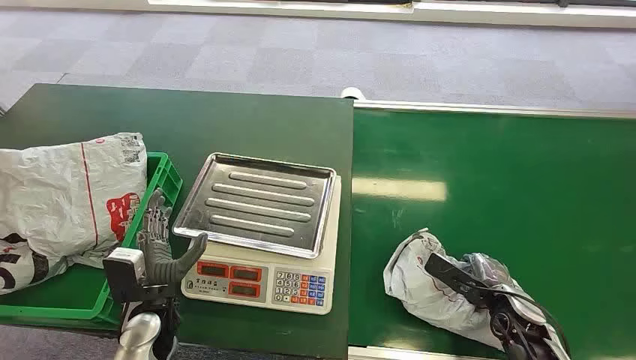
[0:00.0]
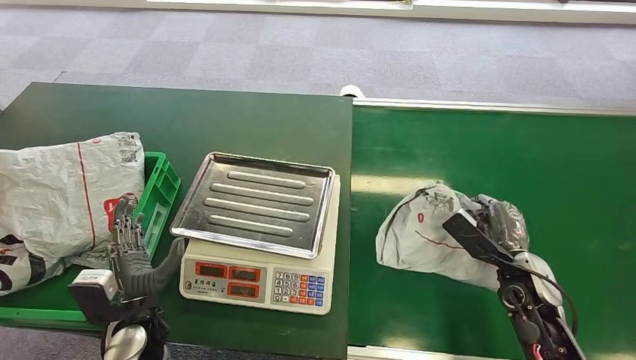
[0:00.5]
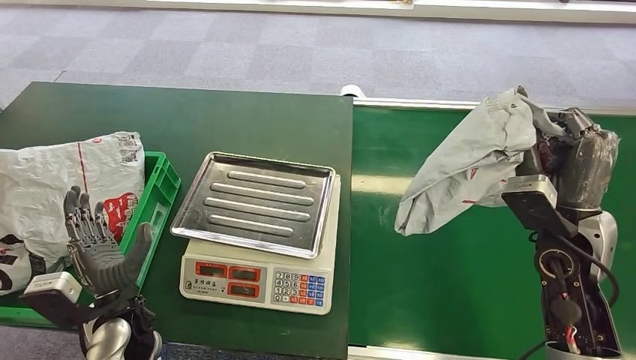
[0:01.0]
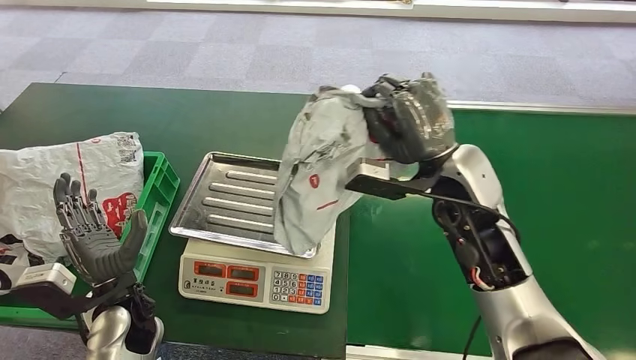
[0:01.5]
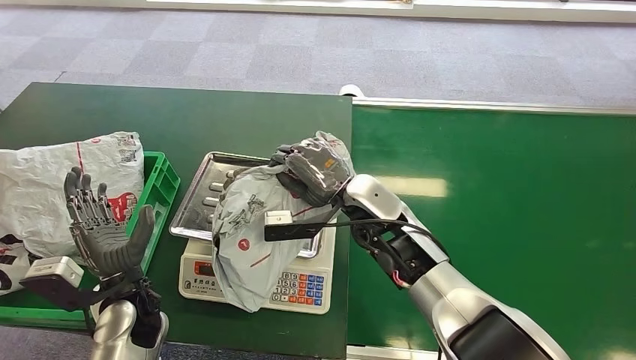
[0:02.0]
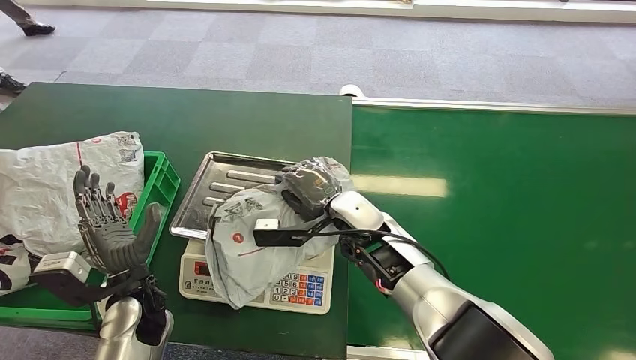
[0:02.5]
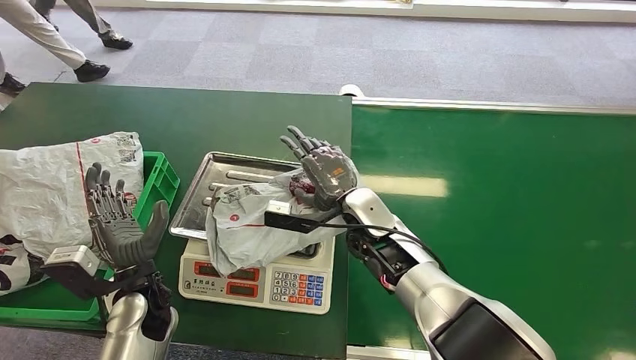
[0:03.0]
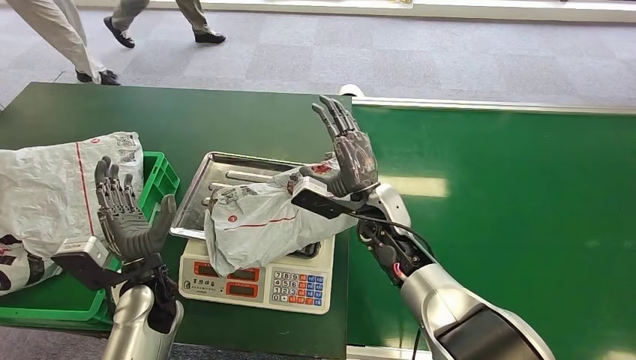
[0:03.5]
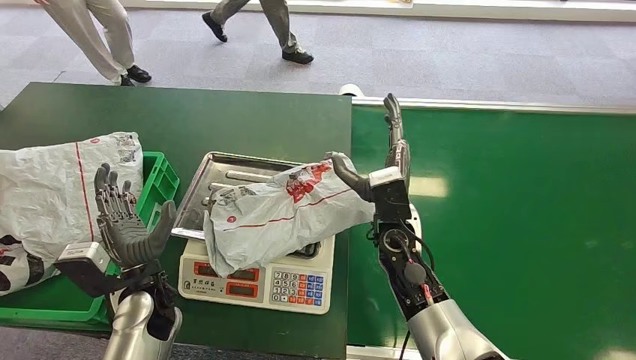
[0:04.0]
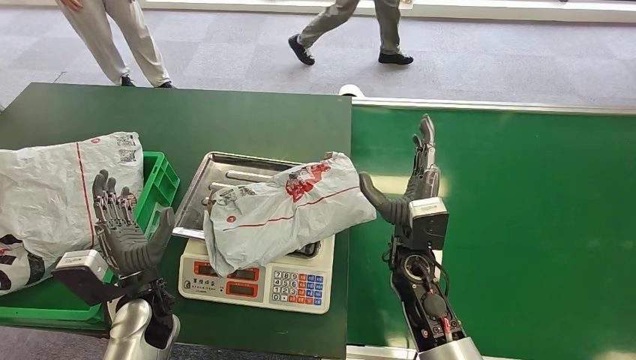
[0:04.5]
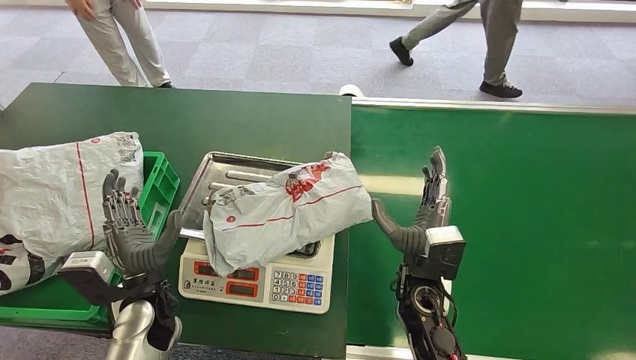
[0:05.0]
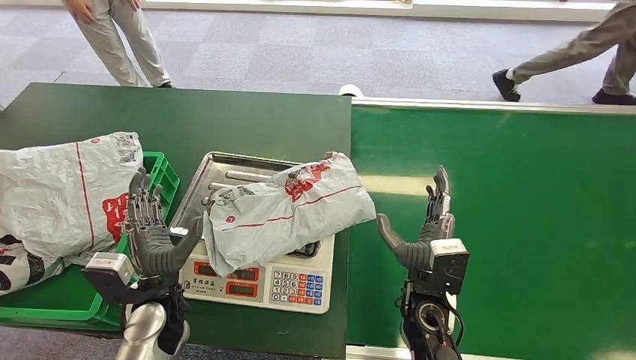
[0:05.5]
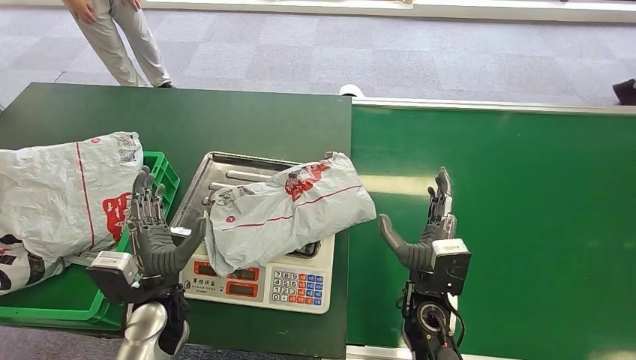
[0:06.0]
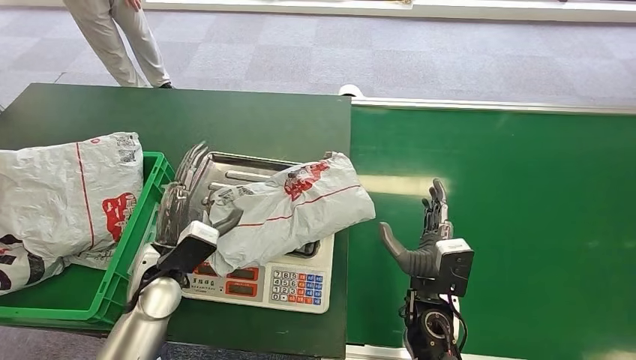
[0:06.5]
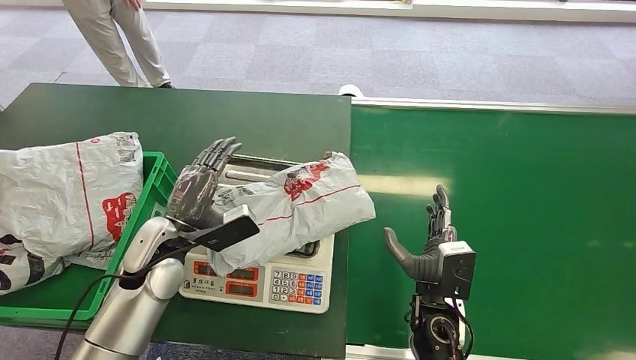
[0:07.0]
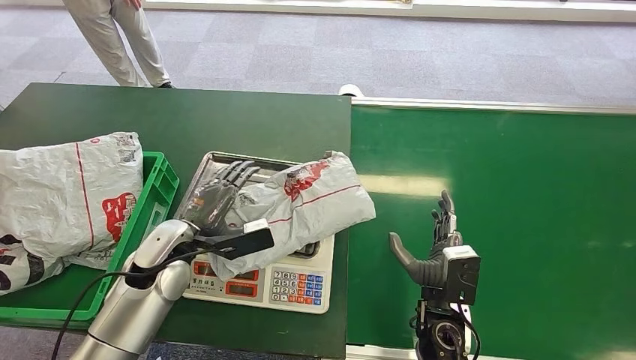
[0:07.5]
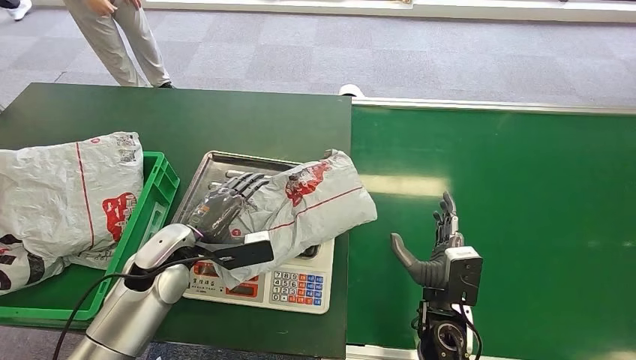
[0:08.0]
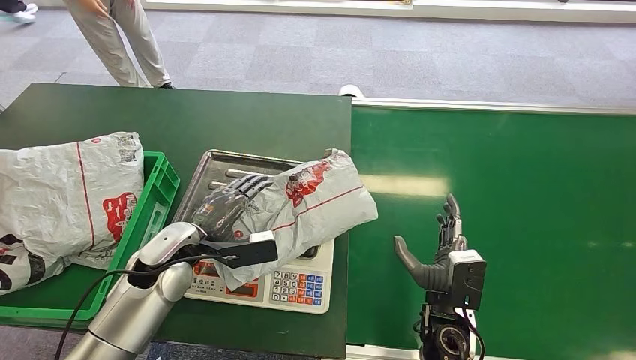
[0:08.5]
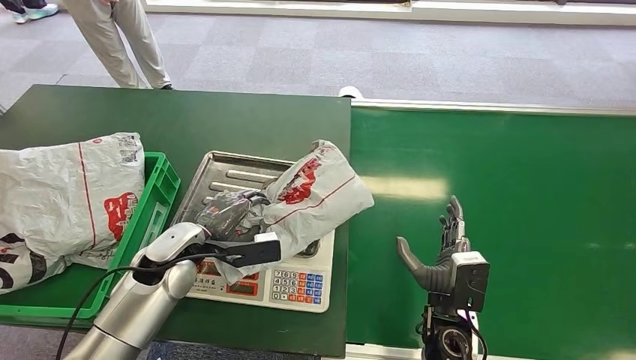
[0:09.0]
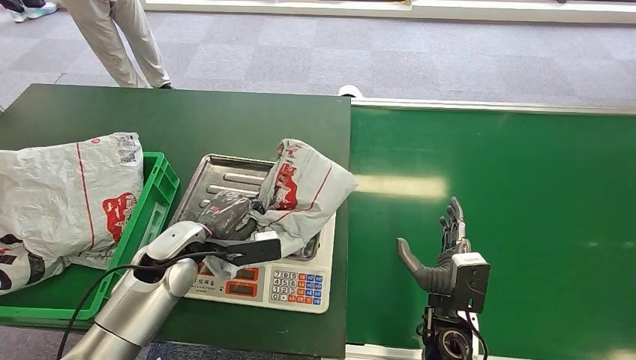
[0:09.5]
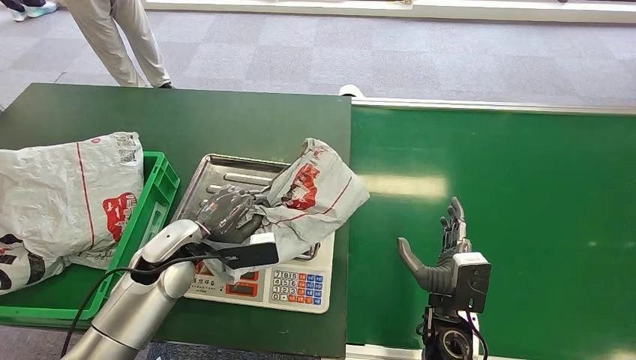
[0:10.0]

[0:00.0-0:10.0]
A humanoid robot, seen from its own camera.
Step, 0:00.0 to 0:01.0: Pick up the package from the conveyor belt.
Step, 0:02.0 to 0:03.0: Place the package onto the inbound machine.
0:04.0 to 0:06.0: The right hand shifts some 10 cm backward and downward.
0:06.0 to 0:08.0: The left hand travels forward by roughly 5 cm.
0:08.0 to 0:10.0: There are only small adjustments of the hands.

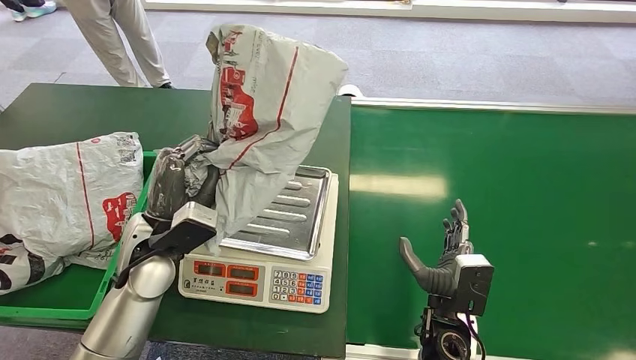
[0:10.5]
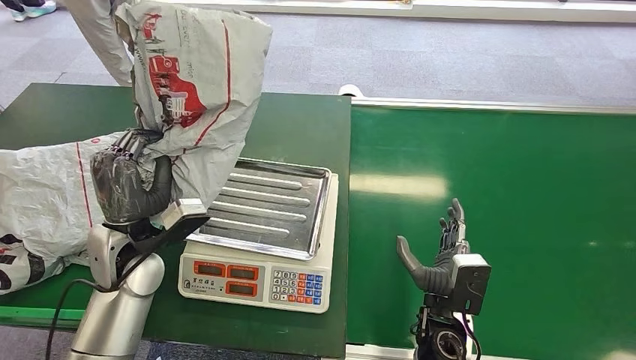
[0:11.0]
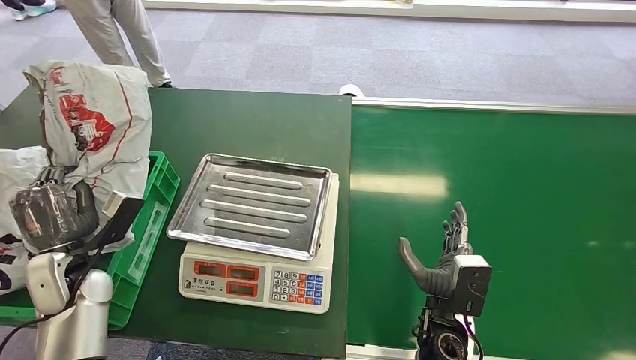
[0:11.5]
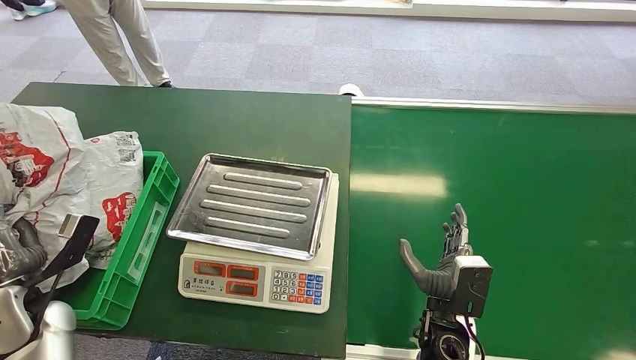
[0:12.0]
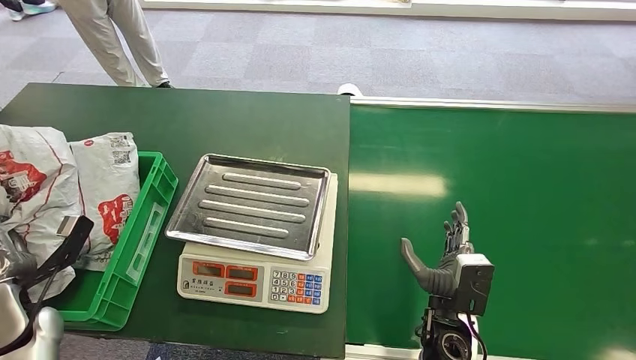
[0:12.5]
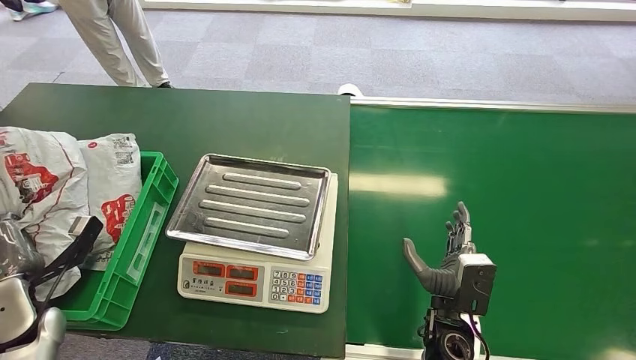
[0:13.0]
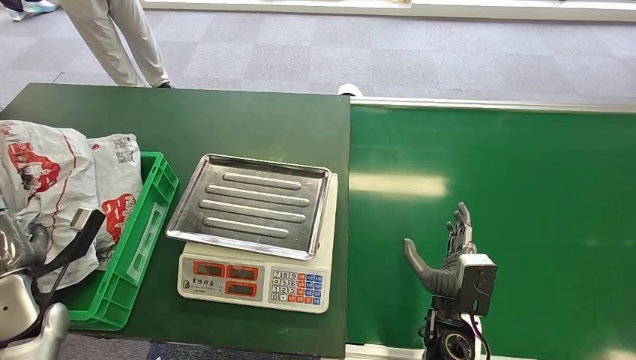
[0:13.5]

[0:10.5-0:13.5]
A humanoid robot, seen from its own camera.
Step, 0:11.0 to 0:13.5: Place the package into the parcel locker.

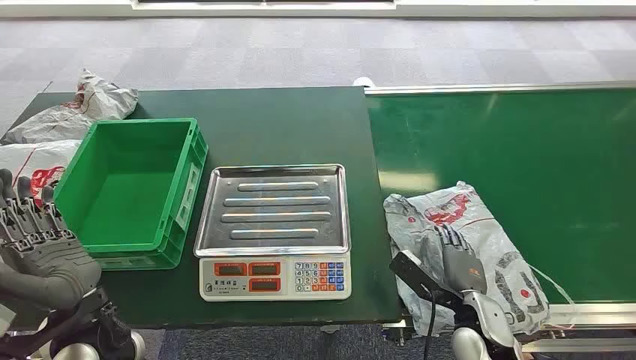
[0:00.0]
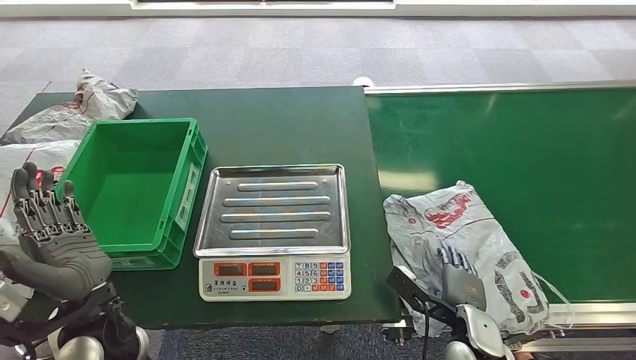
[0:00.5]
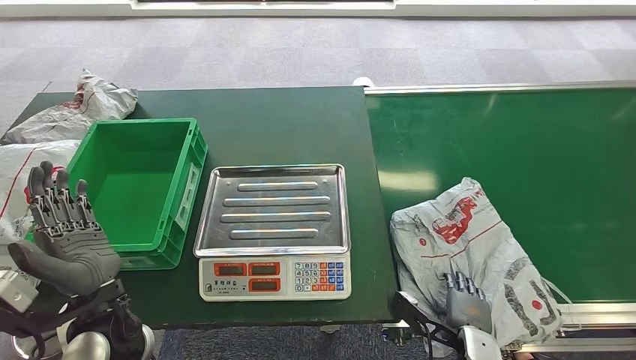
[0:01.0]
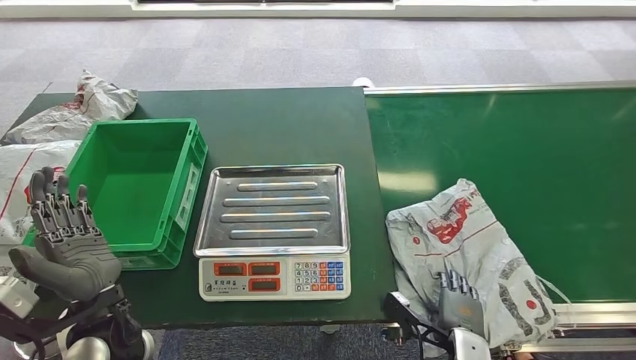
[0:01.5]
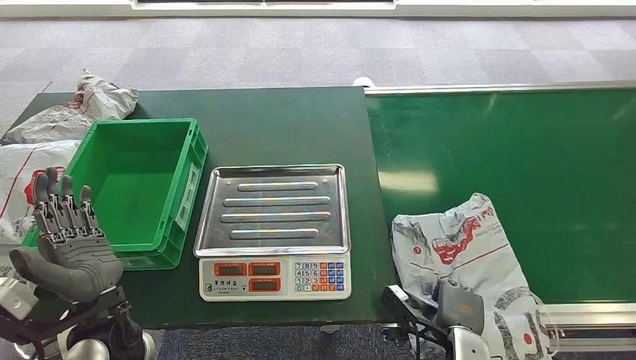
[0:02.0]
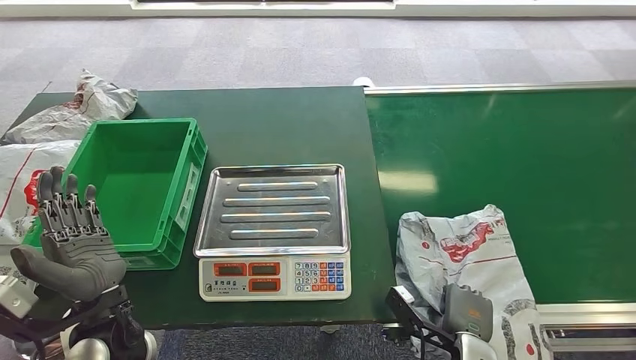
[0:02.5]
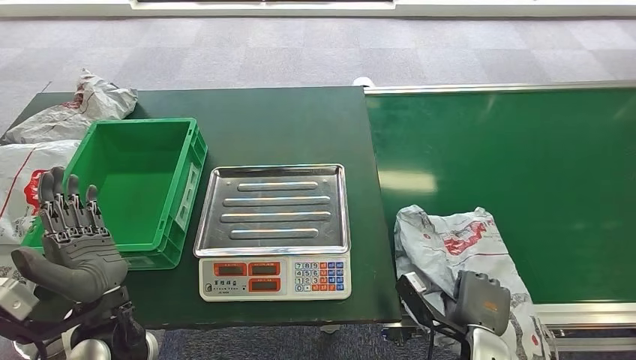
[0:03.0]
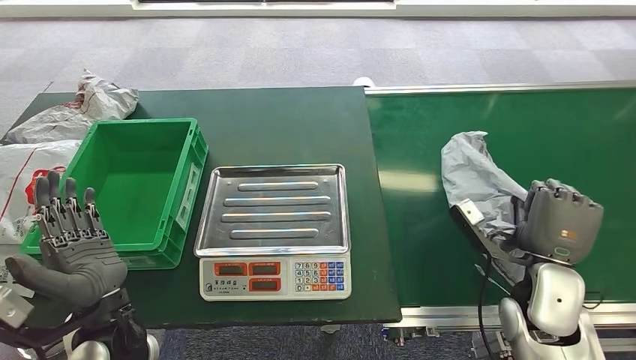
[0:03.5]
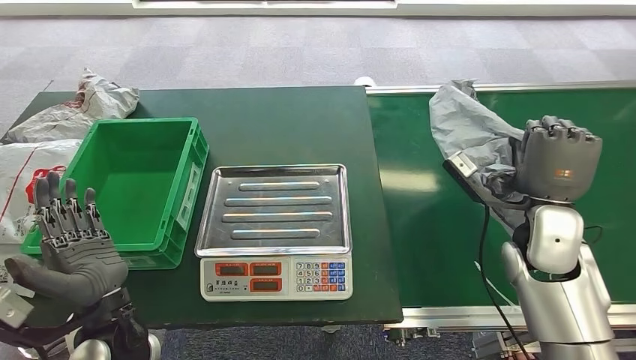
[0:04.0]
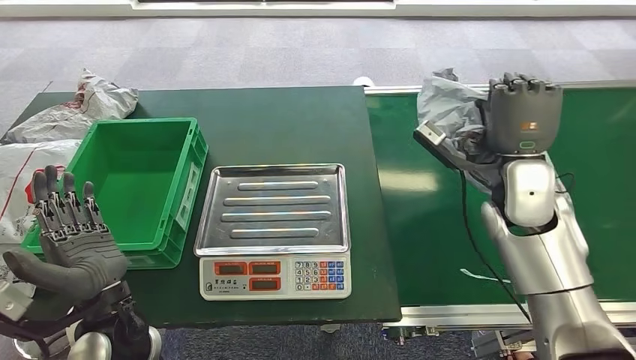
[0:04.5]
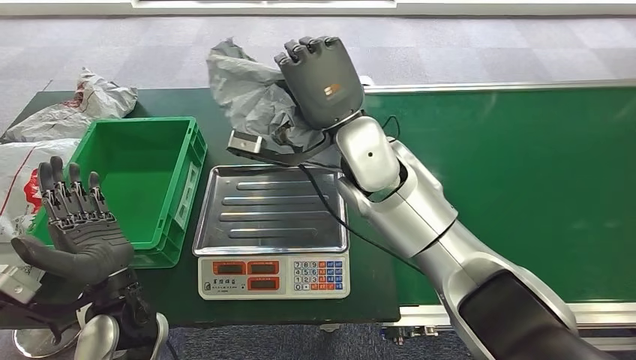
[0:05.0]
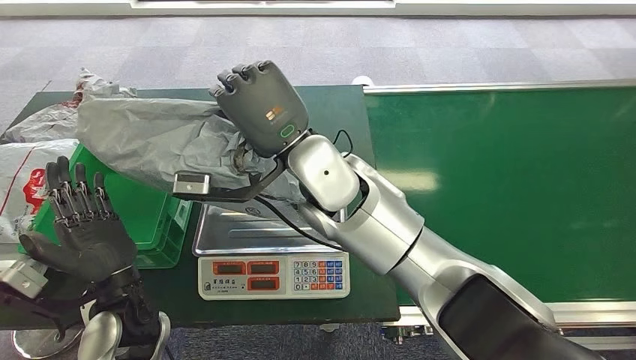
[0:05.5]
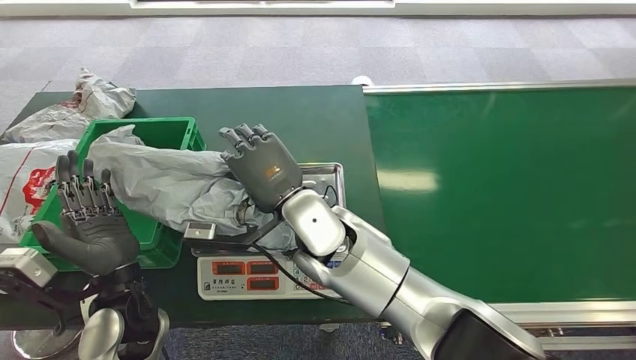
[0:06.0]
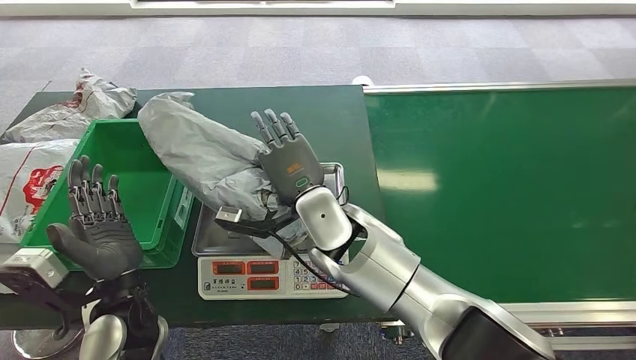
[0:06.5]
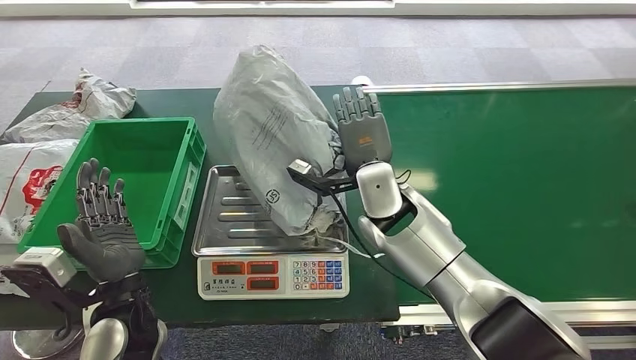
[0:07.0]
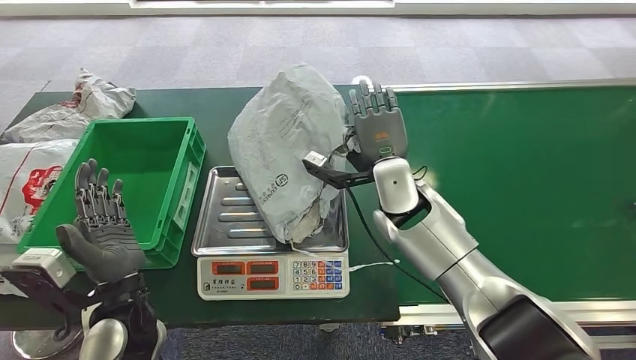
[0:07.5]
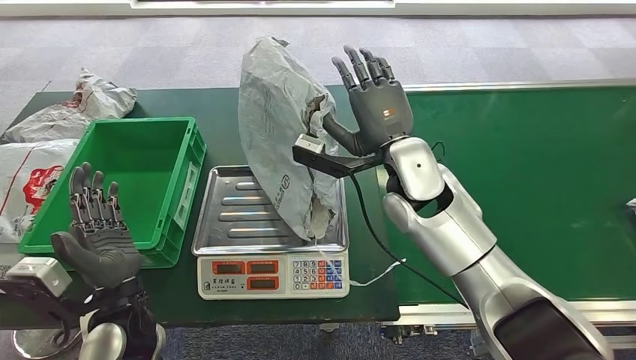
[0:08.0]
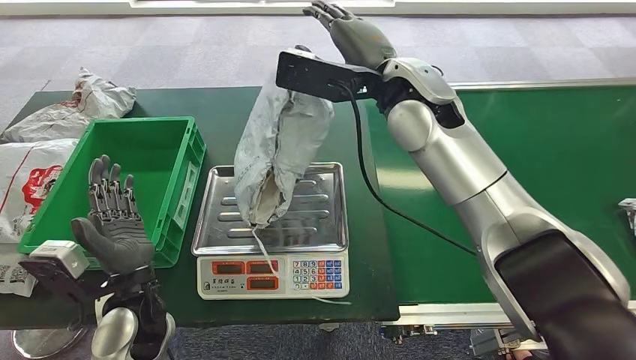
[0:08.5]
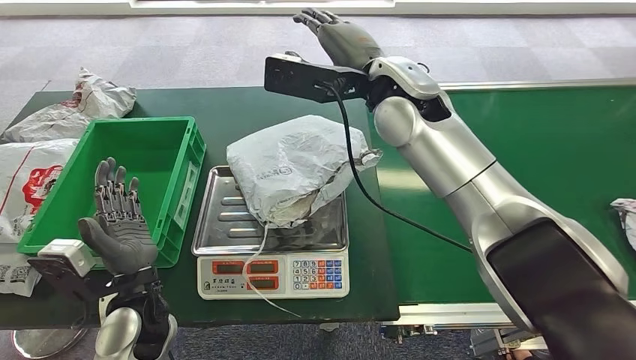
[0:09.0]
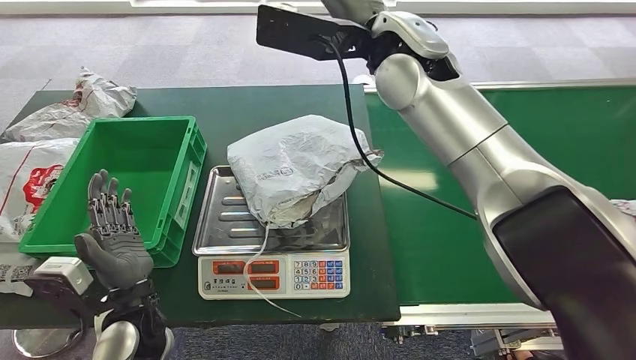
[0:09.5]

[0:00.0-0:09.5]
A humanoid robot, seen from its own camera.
Step, 0:00.0 to 0:04.0: Pick up the package from the conveyor belt.
Step, 0:04.5 to 0:09.5: Place the package onto the inbound machine.
